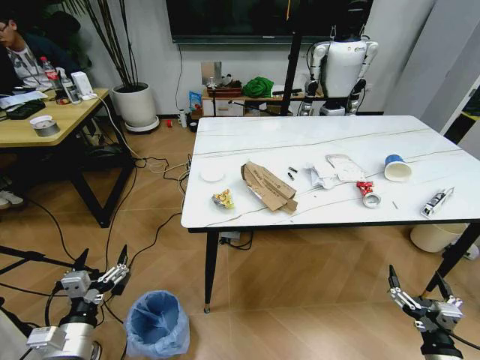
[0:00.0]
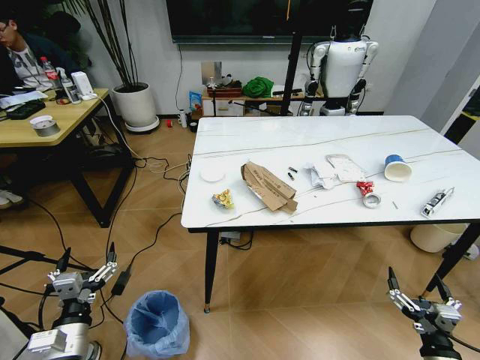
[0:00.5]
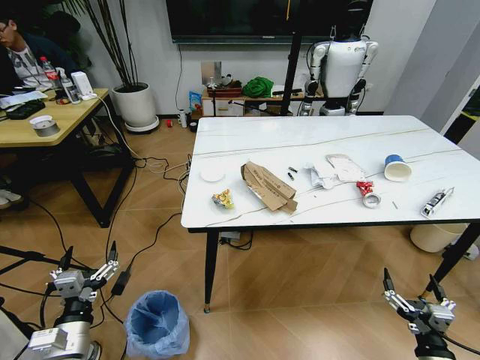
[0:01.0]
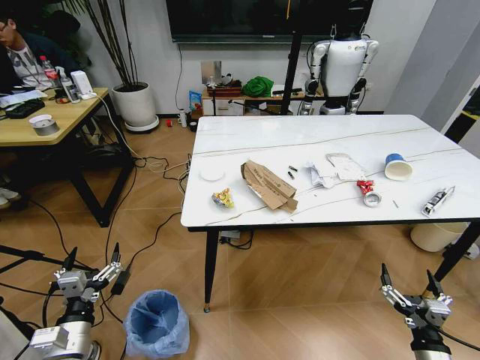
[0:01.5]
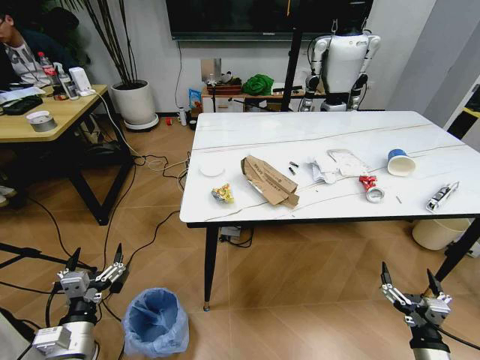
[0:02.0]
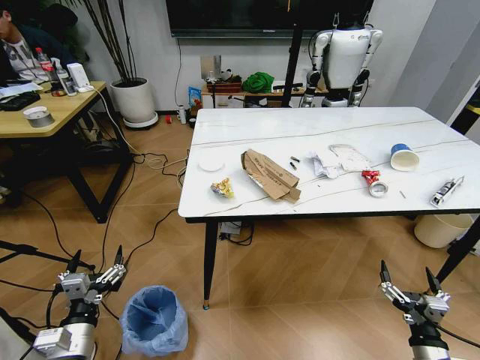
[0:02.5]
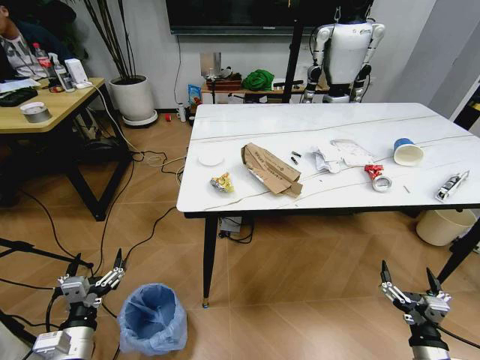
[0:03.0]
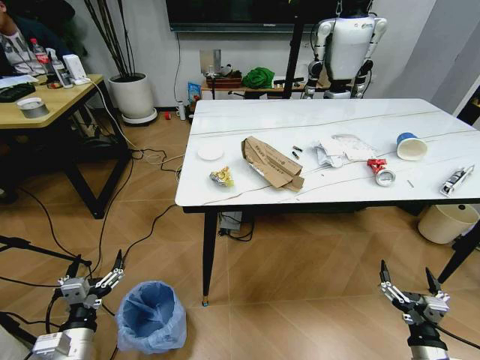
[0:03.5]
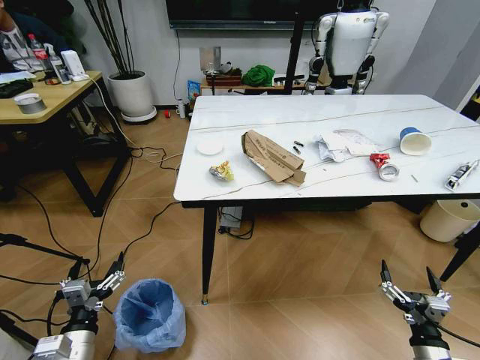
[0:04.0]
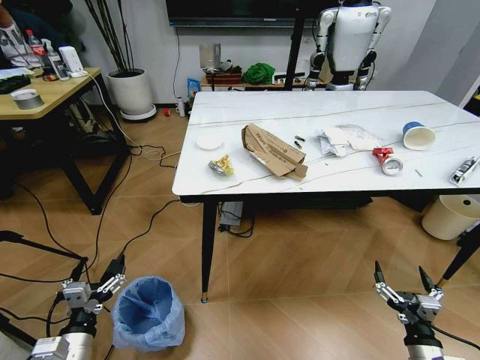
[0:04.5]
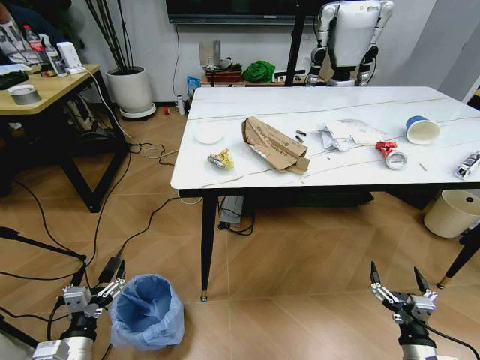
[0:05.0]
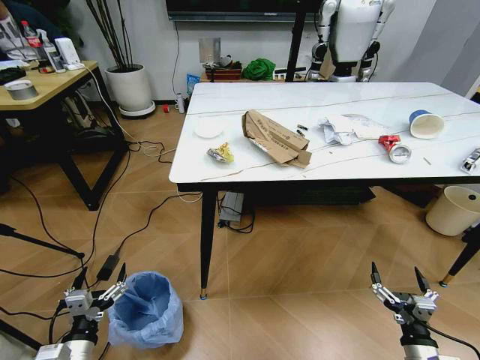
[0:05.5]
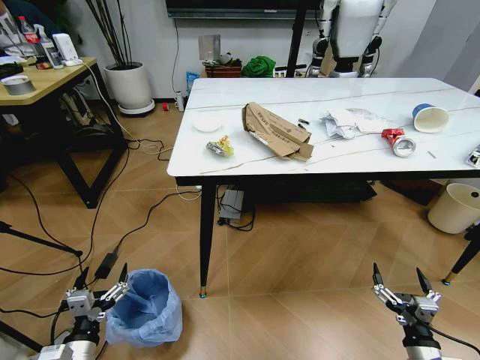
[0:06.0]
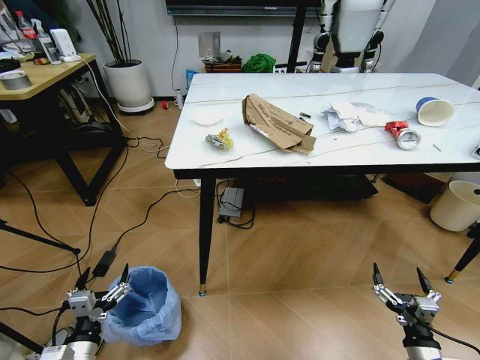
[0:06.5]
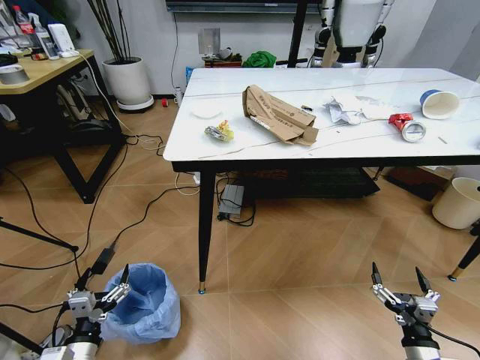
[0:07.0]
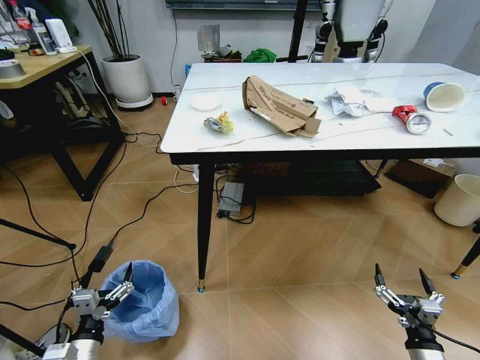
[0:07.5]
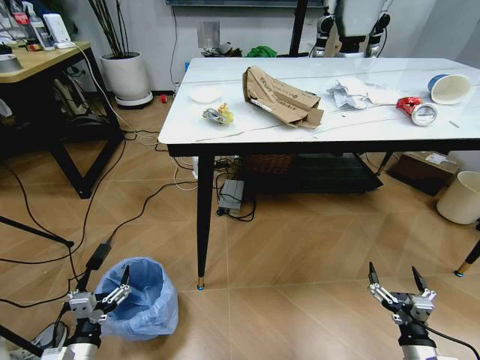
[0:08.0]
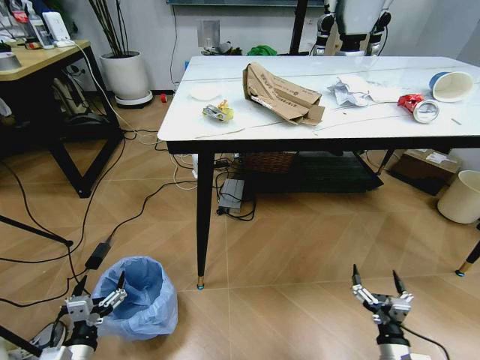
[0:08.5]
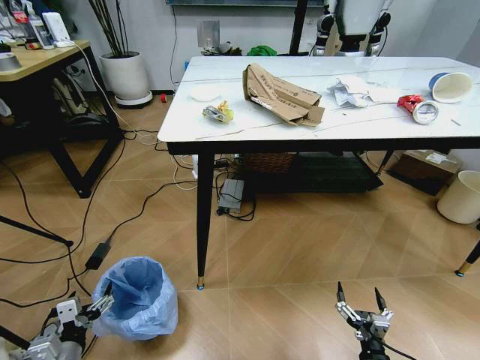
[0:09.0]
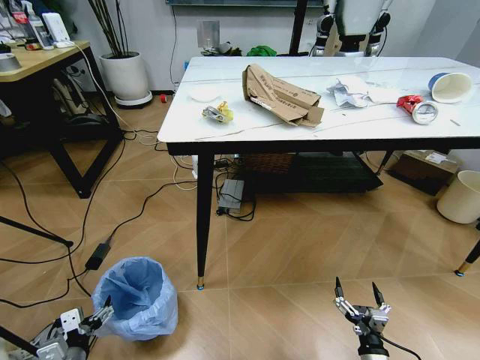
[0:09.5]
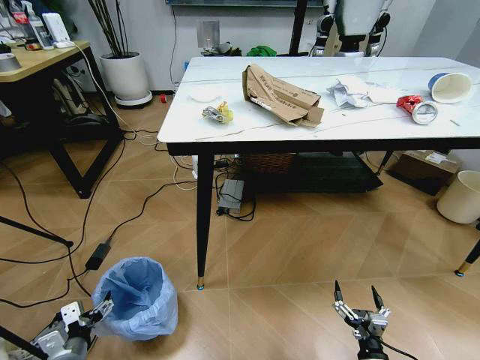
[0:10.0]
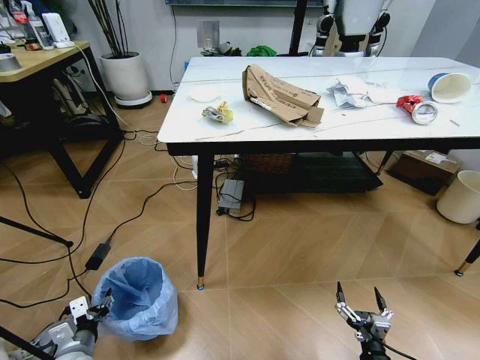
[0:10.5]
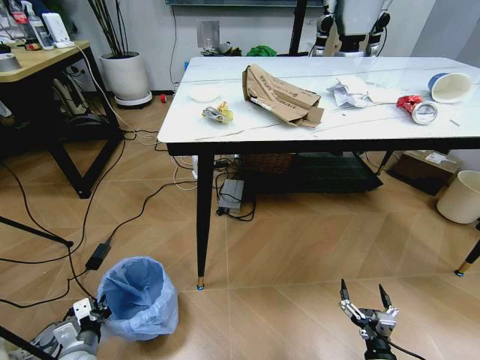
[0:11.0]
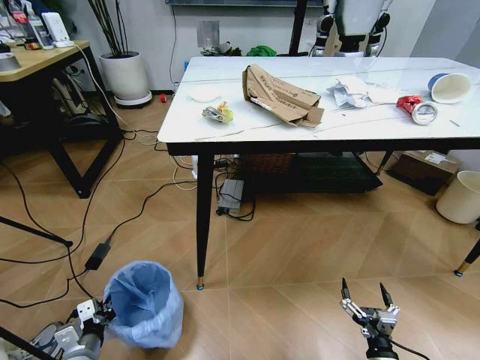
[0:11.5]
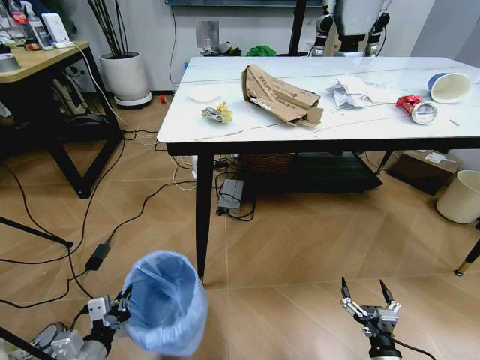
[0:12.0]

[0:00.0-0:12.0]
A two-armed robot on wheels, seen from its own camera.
Task of the whole recording: Pick up the trash bin and place the trash from the table into it.
0:08.0 to 0:10.0: The left gripper moves about 5 cm; the right gripper shifts approximately 10 cm downward and to the left.
0:10.0 to 0:12.0: The left gripper travels to the right by roughly 5 cm, and closes its fingers.

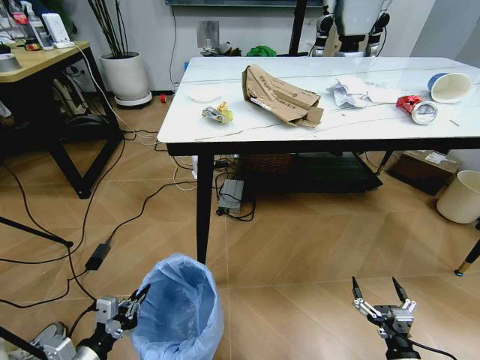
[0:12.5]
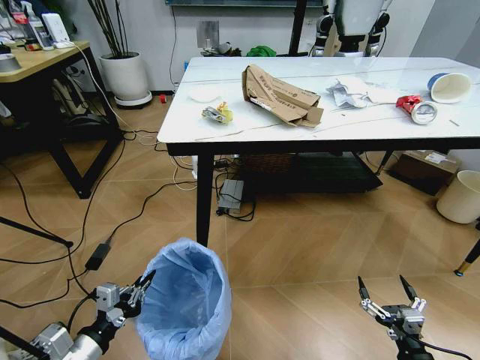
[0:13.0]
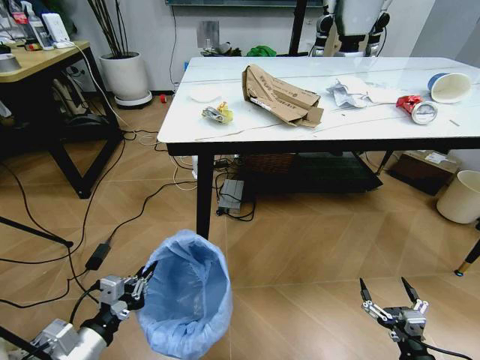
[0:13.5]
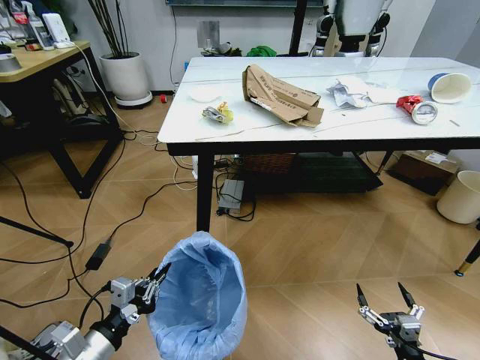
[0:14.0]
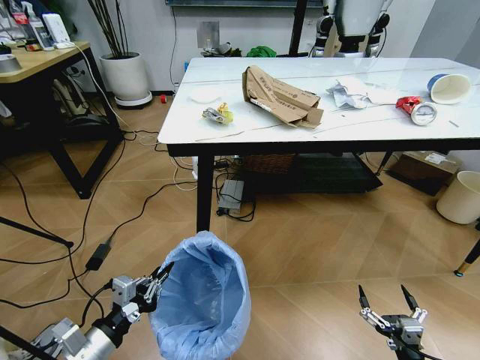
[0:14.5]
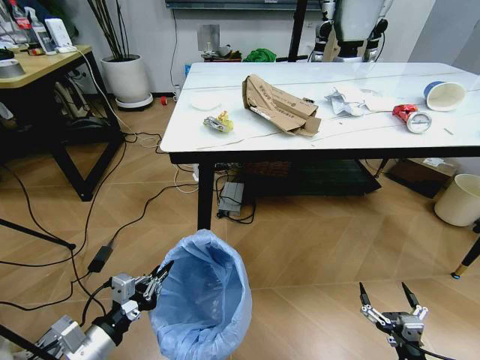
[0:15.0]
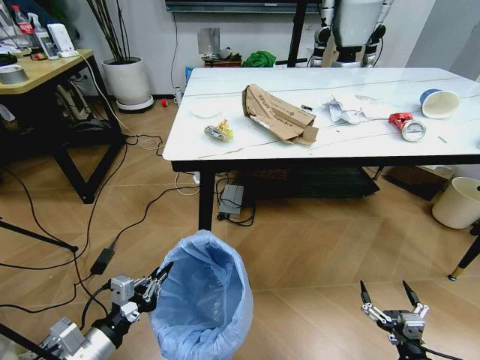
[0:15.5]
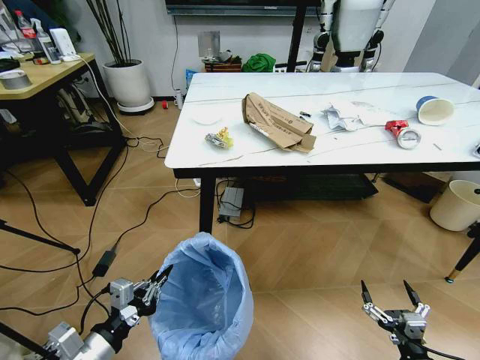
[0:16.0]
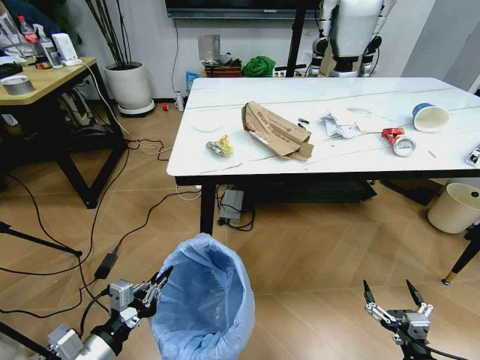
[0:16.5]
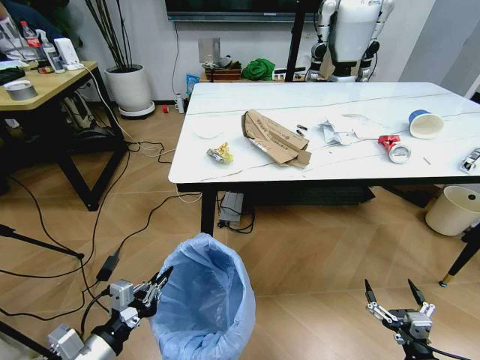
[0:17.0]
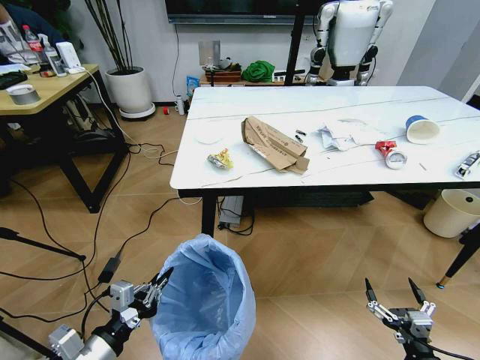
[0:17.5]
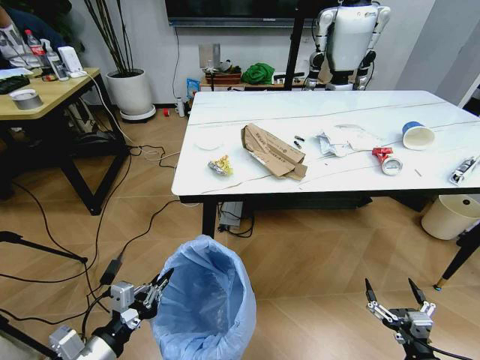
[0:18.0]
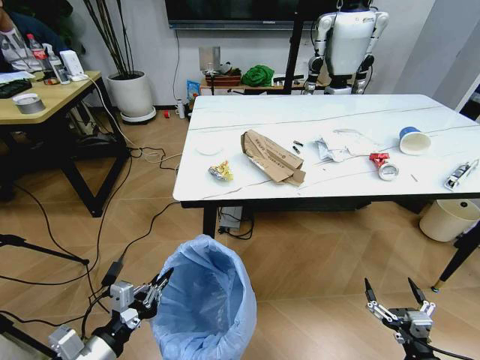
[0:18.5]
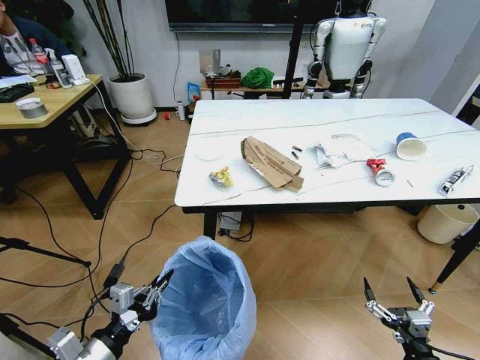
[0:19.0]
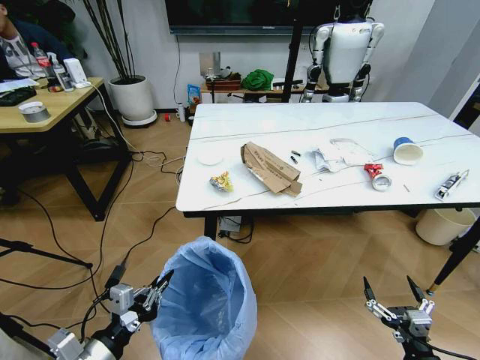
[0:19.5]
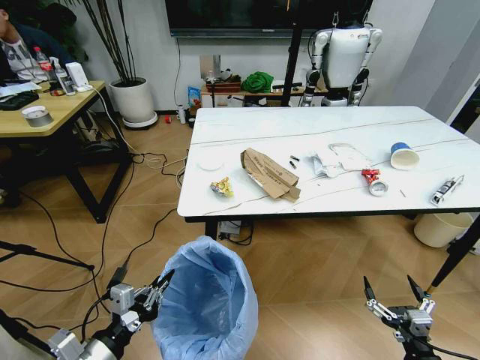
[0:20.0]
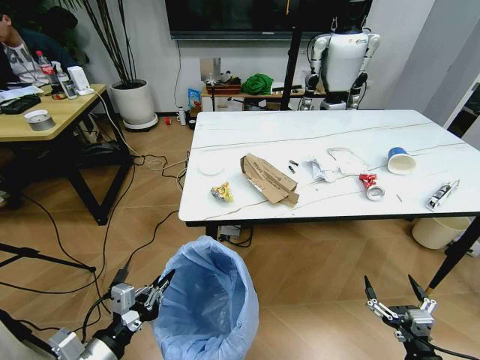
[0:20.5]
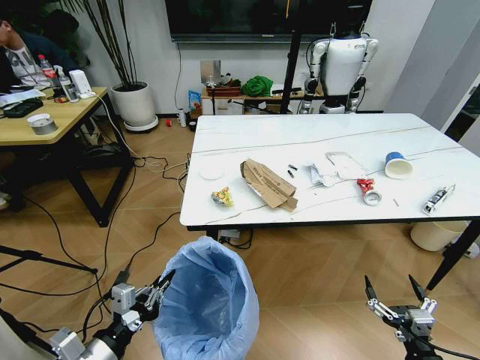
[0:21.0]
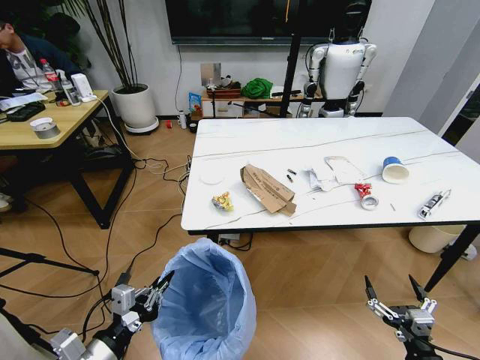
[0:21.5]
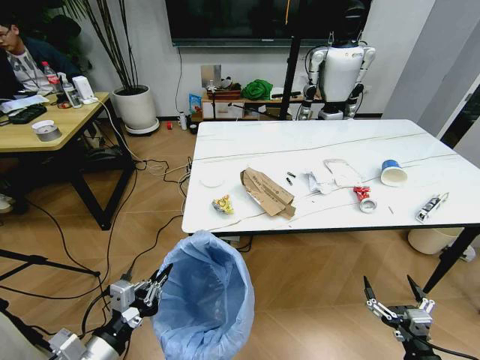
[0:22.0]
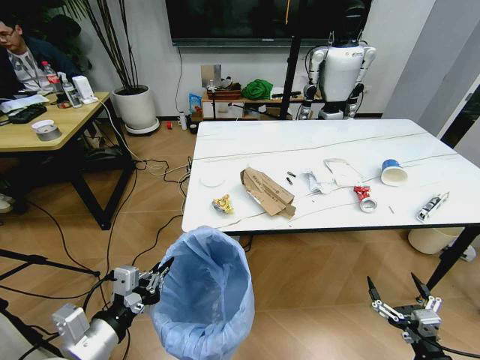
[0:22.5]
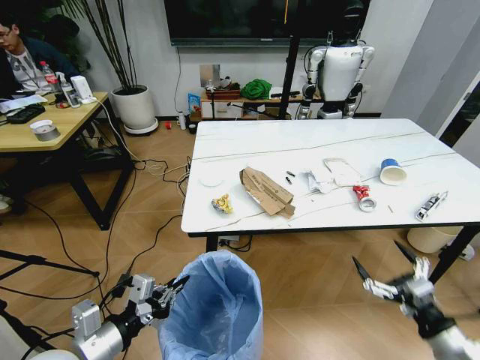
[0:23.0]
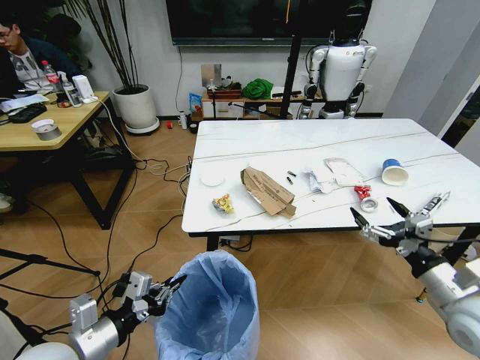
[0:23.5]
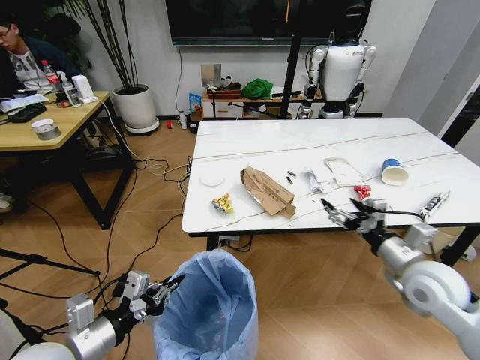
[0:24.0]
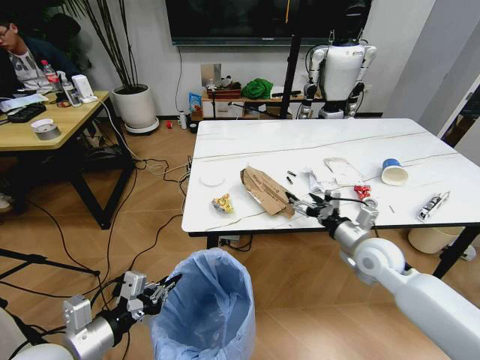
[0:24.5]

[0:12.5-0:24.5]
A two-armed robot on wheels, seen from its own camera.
Task of the whole recording: Pick up the trash bin and place the trash from the table into it.
0:12.5 to 0:14.5: The left gripper shifts some 5 cm upward.
0:20.5 to 0:22.5: The left gripper changes place by about 5 cm.
0:22.5 to 0:24.5: The right gripper heads forward and upward, covering roughly 30 cm.

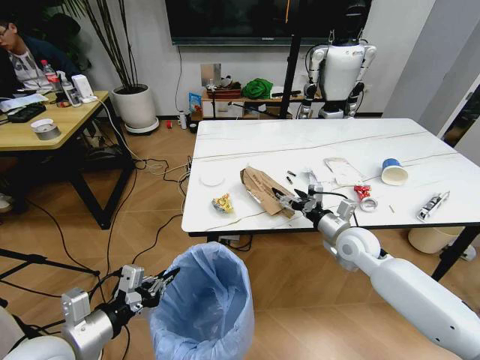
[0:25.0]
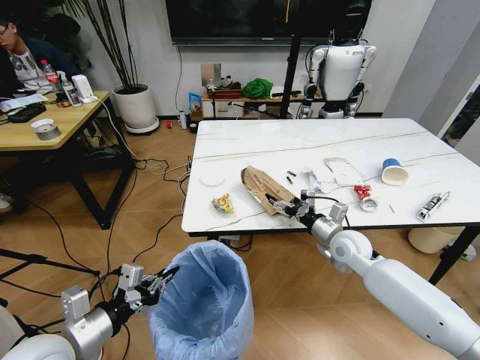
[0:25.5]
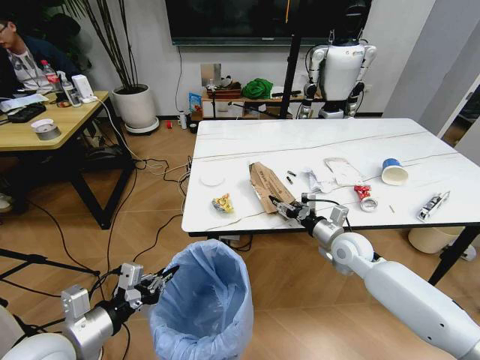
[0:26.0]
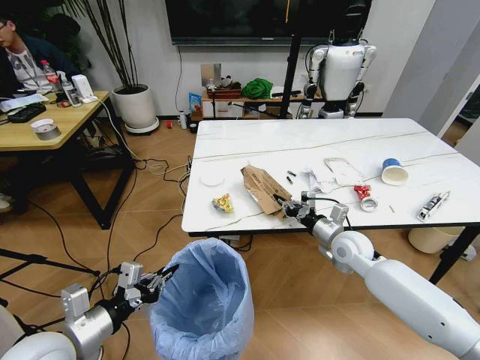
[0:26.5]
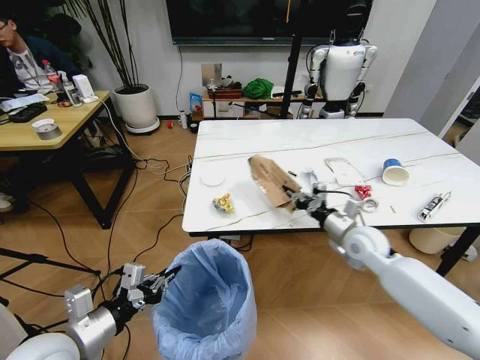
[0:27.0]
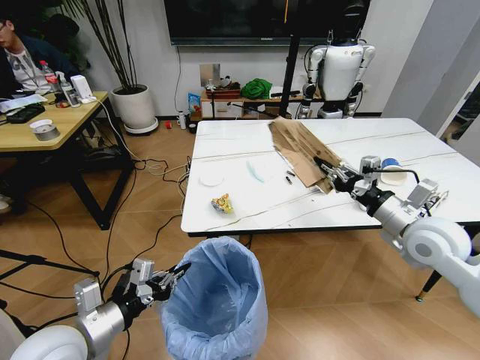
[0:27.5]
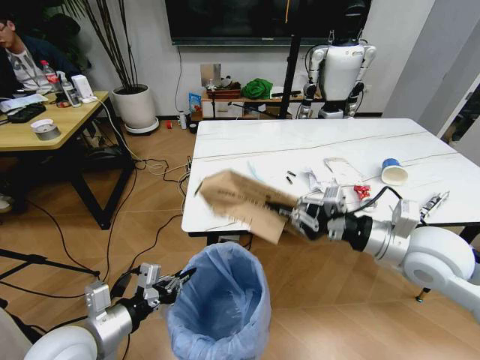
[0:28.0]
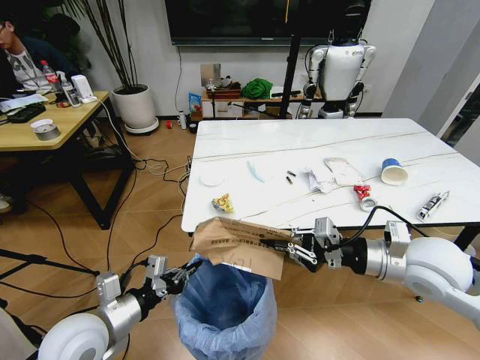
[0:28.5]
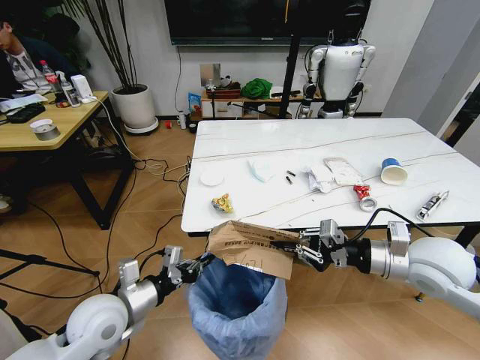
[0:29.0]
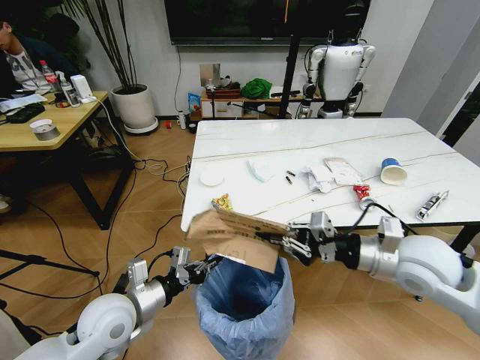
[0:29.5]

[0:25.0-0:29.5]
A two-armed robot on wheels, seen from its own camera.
Task of the whole recording: Pick up the trash bin and place the trash from the table into it.
0:25.0 to 0:27.0: The right gripper closes its fingers.
0:27.0 to 0:29.5: The right gripper travels upward and backward by some 15 cm. The left gripper shifts approximately 10 cm forward and to the right.
